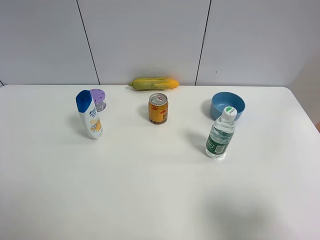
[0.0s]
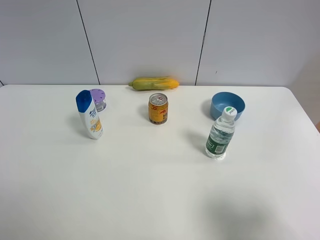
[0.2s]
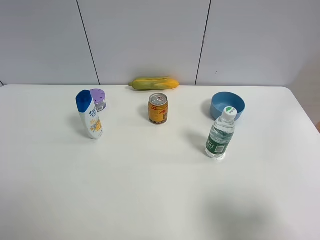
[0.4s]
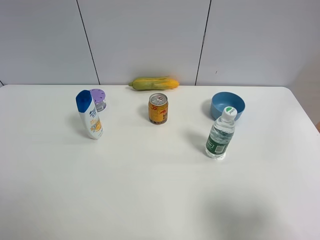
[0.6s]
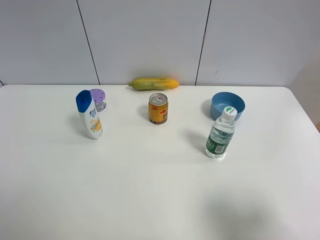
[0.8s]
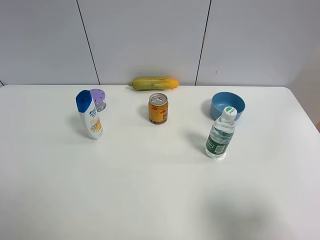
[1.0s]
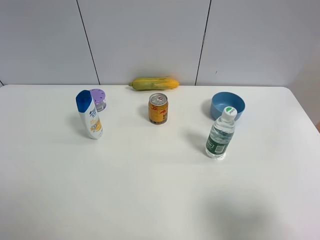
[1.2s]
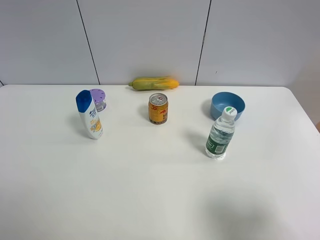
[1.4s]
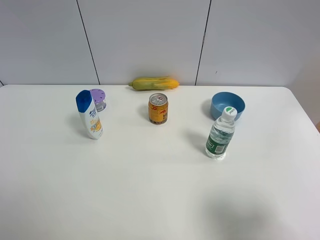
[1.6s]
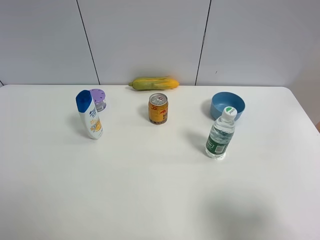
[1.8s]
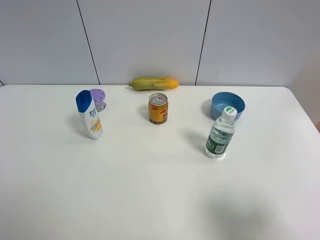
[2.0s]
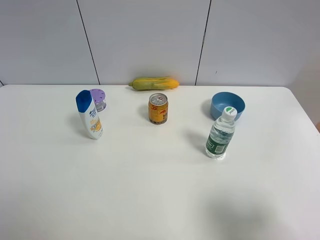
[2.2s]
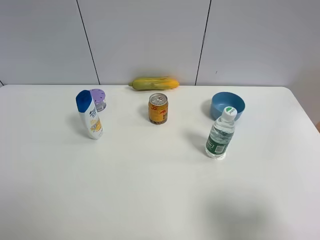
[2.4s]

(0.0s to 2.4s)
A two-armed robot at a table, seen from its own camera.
Task of the whole recording: the gripper move the object.
0.0s - 1.2s: The two grippers keep their place.

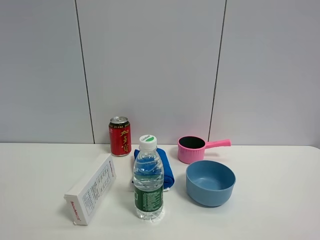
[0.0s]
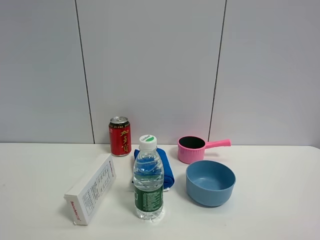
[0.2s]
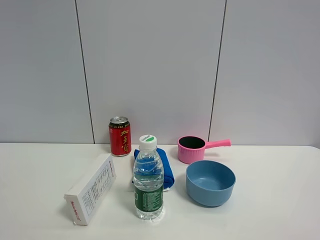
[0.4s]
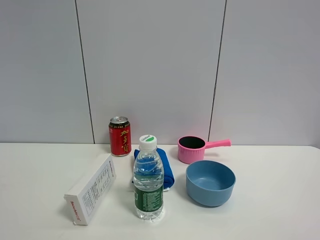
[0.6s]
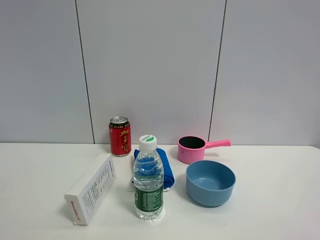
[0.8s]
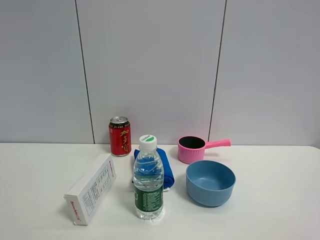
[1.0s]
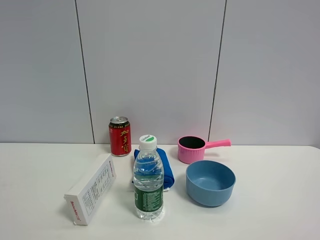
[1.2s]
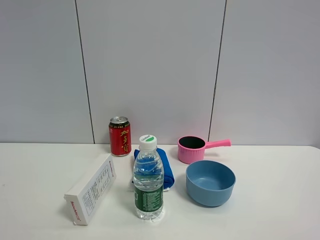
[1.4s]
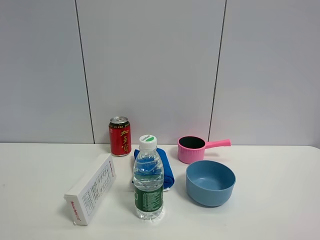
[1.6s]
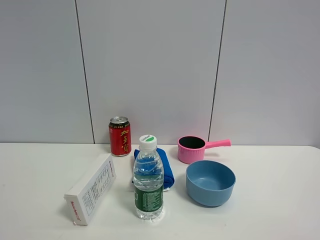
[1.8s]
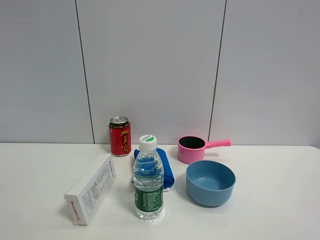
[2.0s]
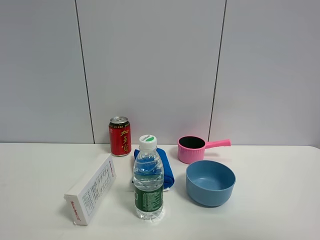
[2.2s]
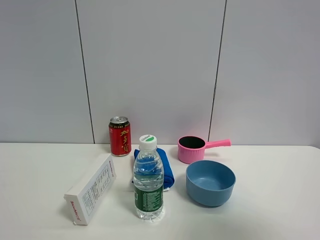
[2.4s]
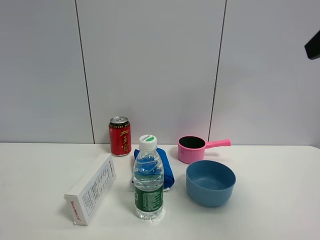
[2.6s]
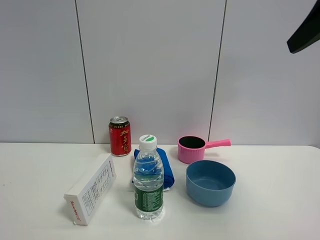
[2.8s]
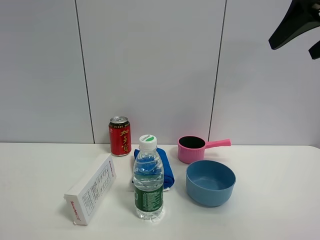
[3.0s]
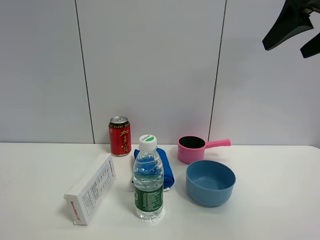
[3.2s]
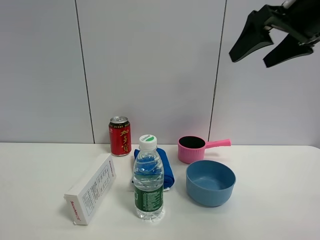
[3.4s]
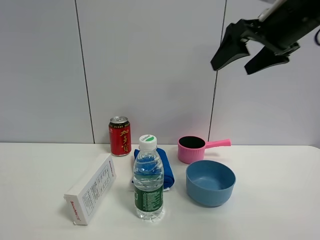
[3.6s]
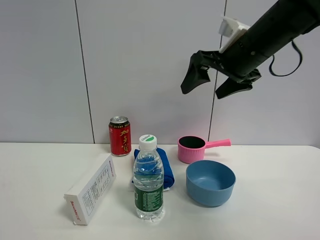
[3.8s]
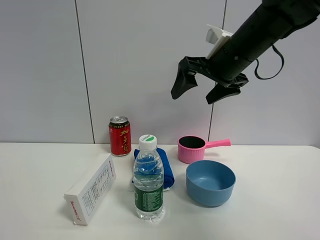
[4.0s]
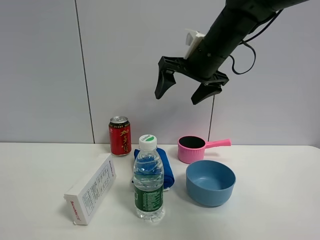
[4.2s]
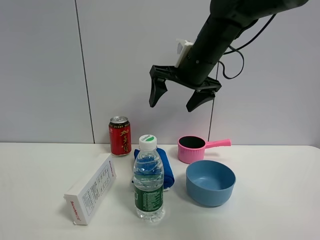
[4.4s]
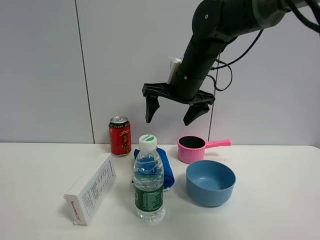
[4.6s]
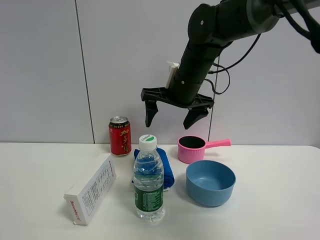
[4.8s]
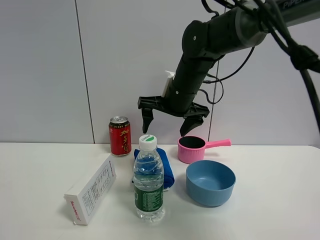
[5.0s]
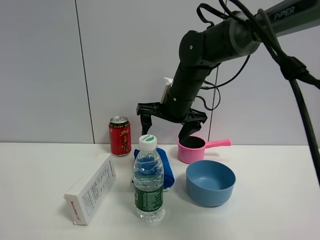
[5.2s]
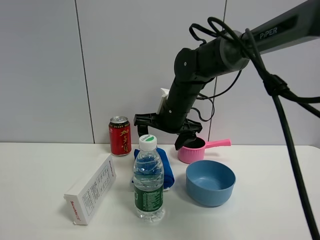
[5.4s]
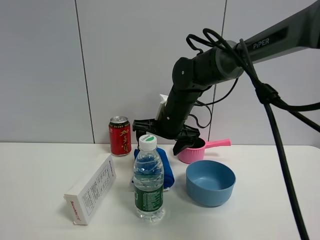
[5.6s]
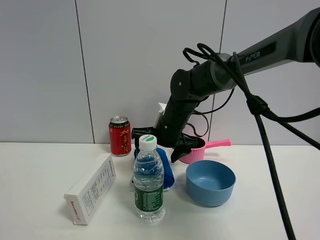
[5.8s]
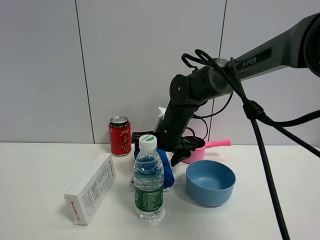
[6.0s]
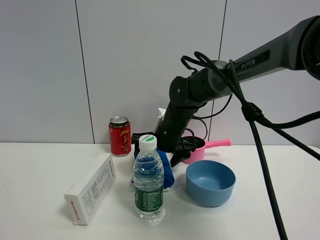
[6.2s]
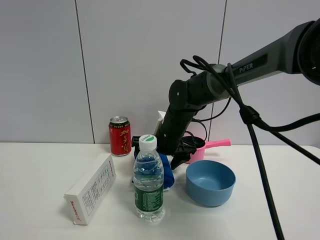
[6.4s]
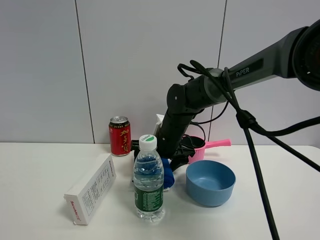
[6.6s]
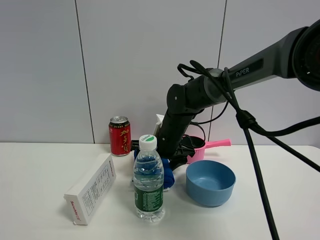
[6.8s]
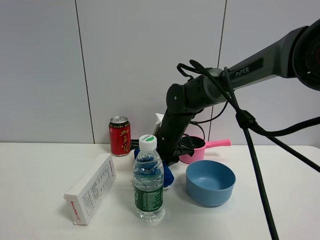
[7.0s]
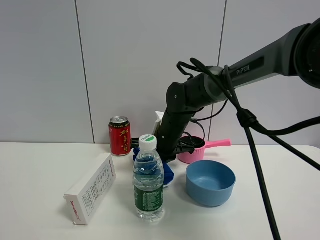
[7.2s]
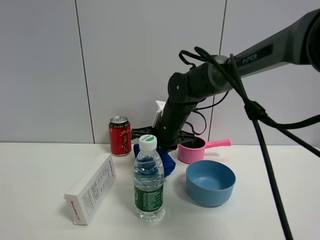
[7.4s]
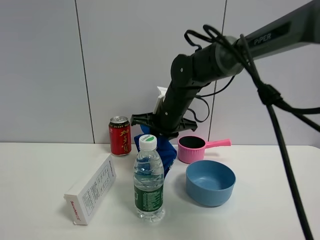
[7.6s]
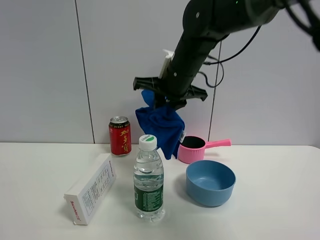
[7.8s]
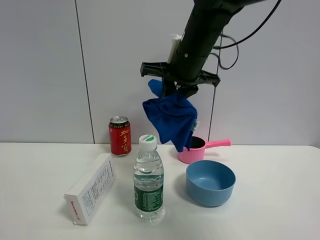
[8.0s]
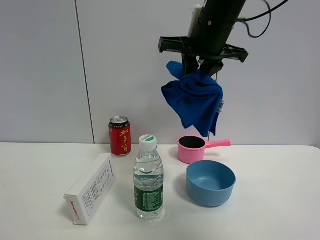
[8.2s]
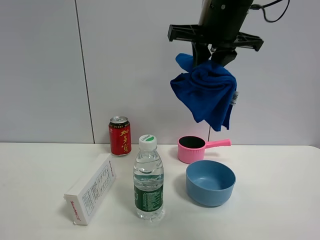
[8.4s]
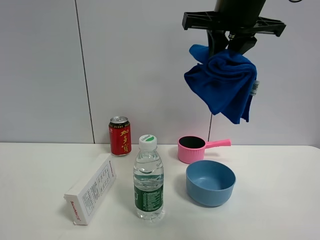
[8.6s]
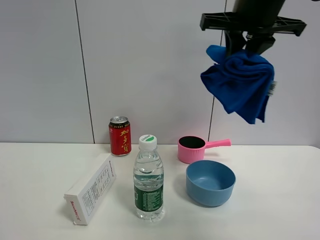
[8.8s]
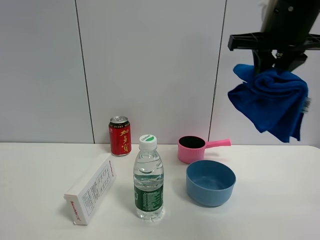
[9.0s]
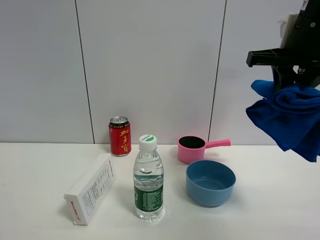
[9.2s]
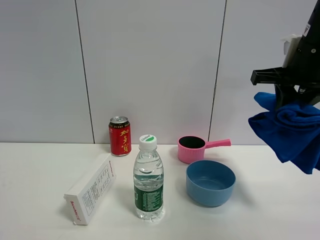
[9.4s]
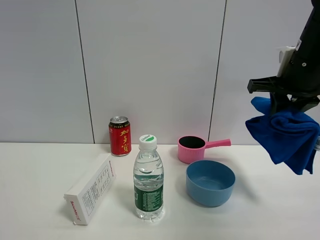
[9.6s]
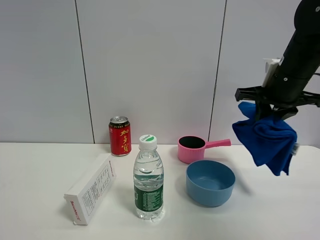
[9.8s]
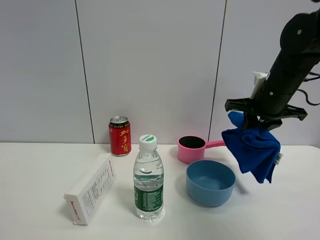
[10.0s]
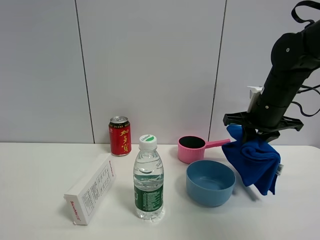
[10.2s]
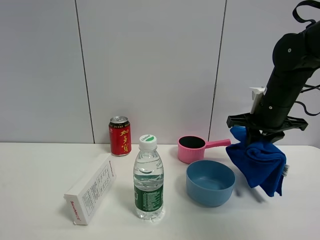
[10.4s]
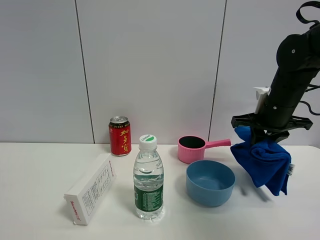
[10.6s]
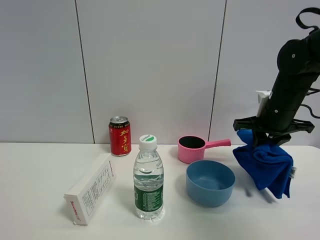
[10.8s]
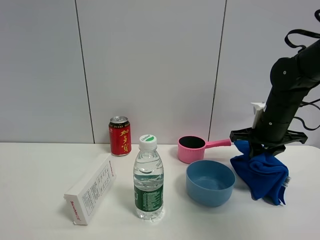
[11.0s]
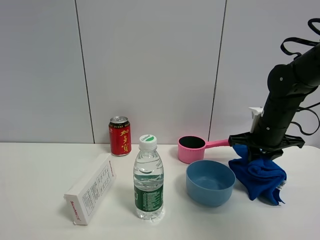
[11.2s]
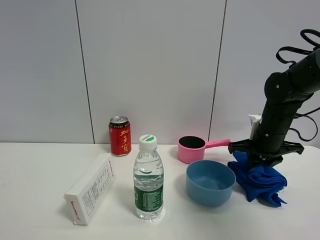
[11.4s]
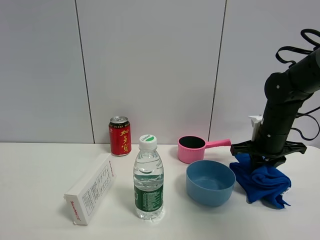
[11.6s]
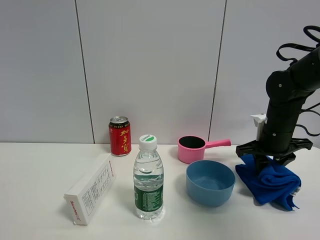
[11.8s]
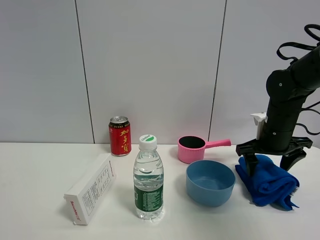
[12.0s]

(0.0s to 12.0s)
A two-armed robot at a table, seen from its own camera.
Task of the whole recording: the gripper move the object.
Step, 0.0s - 7.0s: Grasp the blue towel with the right gripper.
0.0s - 1.6s: Neither gripper changes place.
1.6s - 3.0s: The right gripper shifts about 30 cm forward.
3.0s - 4.4s: The right gripper goes approximately 25 cm to the left, downward and forward.
4.4s - 6.0s: The right gripper heads downward, covering some 15 cm.
6.0s - 7.6s: The right gripper moves upward, roughly 5 cm, and closes up.
7.6s - 9.0s: The right gripper heads to the right, upward and backward, covering about 25 cm.
9.0s - 10.4s: The right gripper shifts approximately 15 cm downward and forward.
10.4s - 12.0s: The right gripper shifts about 5 cm downward, and opens.

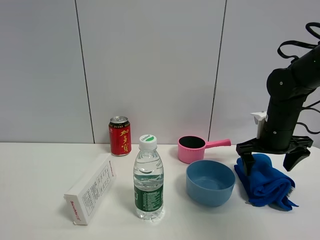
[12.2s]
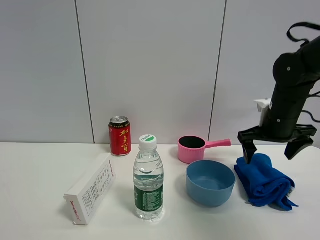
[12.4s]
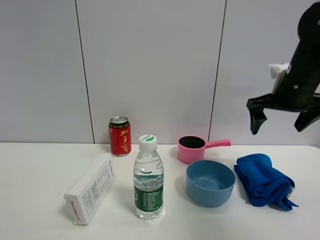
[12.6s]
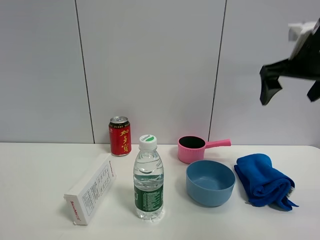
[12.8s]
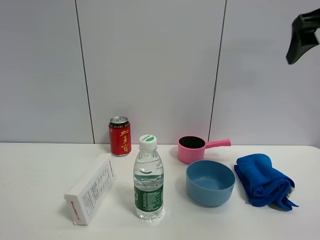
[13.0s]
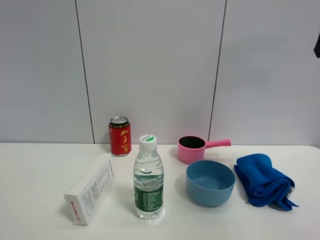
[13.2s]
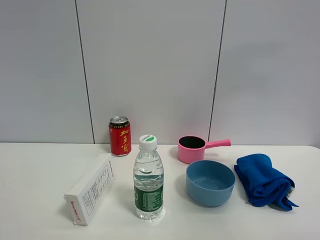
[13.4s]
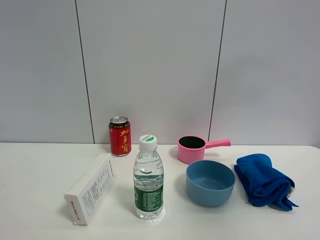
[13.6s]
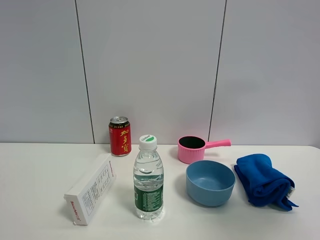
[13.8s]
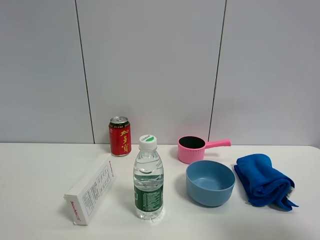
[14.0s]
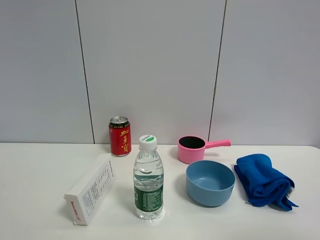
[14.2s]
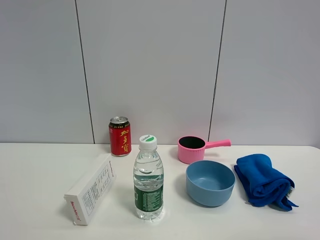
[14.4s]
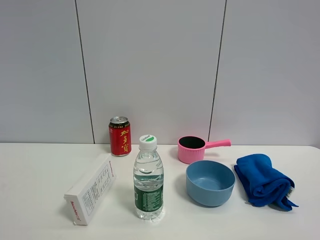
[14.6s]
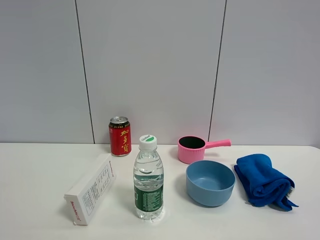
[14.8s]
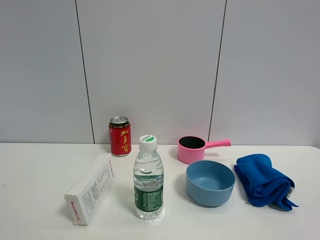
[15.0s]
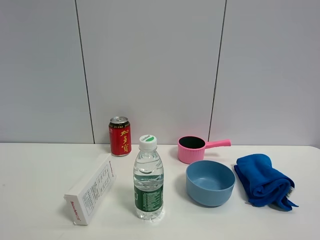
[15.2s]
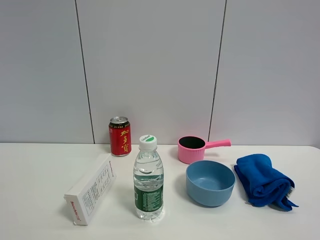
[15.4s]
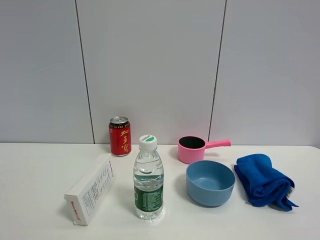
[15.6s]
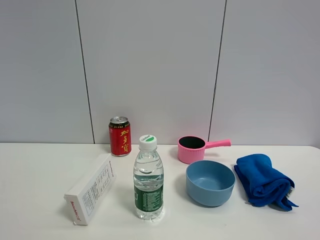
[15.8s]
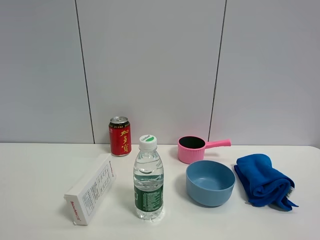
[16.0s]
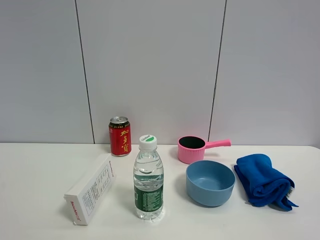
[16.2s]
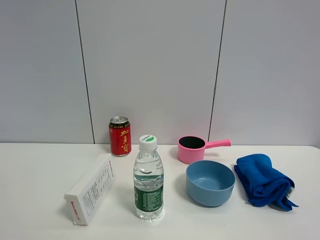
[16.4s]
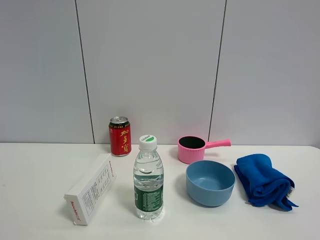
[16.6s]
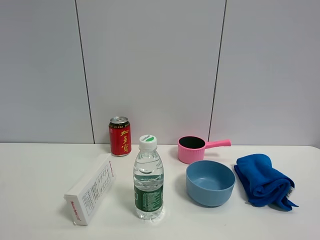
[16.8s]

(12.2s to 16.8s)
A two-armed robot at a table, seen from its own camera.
Task of the whole recording: the gripper move the object.
12.2s - 13.8s: The right gripper is displaced backward and upward by some 30 cm.
13.8s - 15.2s: The right gripper travels backward by approximately 10 cm.

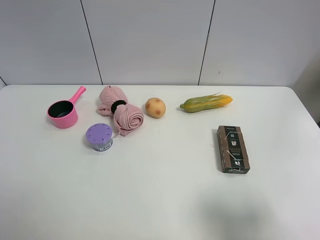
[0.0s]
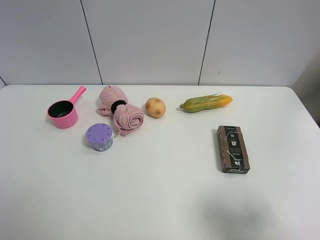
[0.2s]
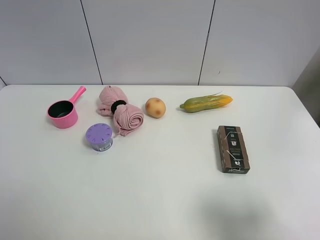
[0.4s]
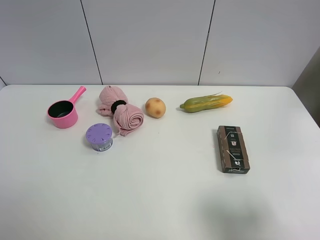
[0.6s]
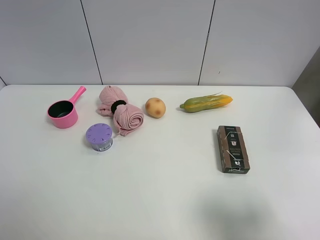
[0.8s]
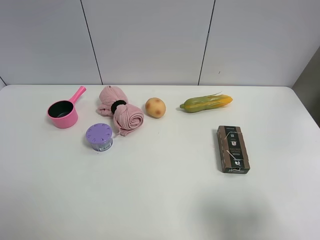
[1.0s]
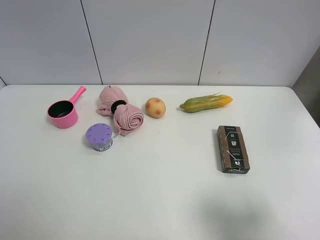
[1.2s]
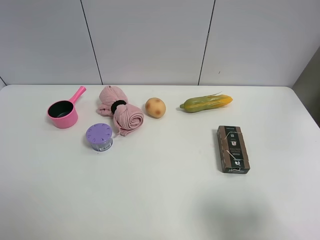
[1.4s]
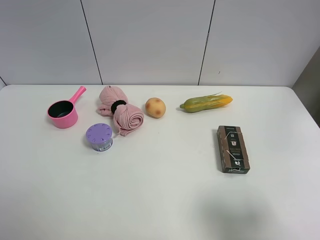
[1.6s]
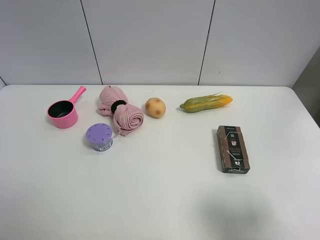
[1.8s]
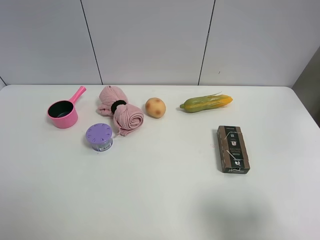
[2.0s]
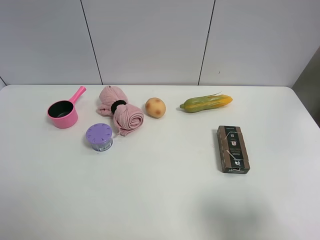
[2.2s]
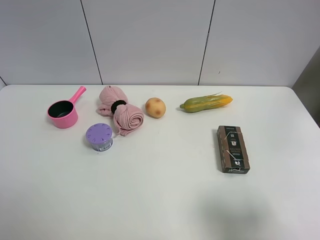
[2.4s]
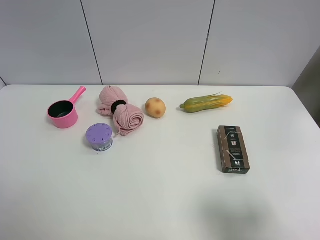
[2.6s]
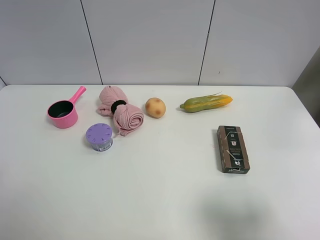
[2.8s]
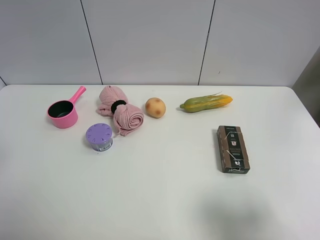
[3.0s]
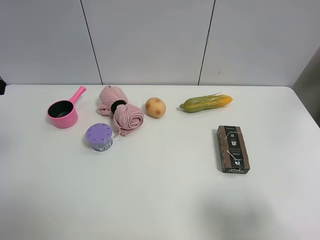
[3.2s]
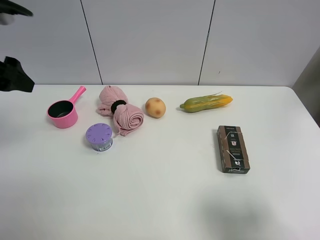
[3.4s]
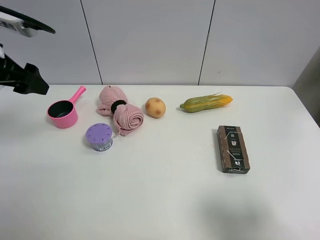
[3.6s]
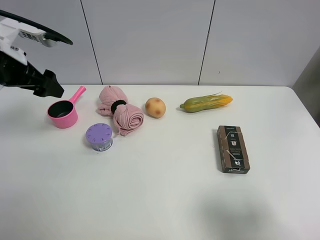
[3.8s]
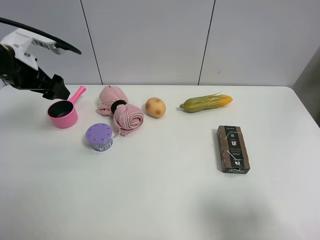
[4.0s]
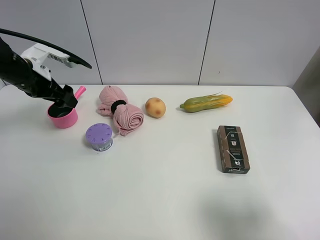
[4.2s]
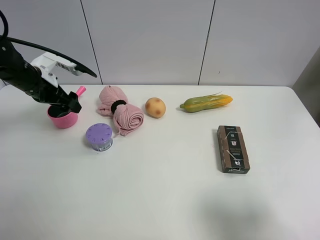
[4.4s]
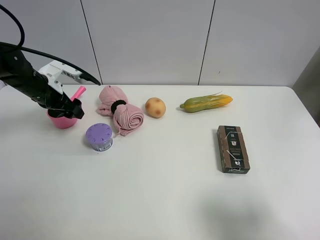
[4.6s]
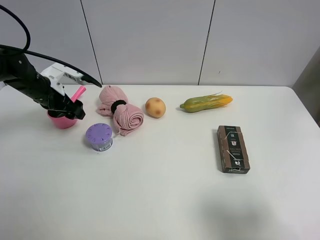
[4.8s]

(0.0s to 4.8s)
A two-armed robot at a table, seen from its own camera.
Task of the whole recording: the gripper move the object.
0.0s - 1.6s: Both grippers stay put.
3.2s - 4.8s: The left gripper shifts about 25 cm downward and forward.
